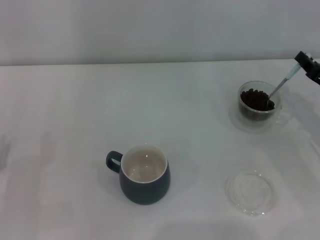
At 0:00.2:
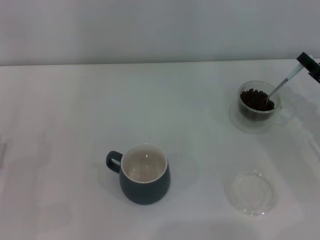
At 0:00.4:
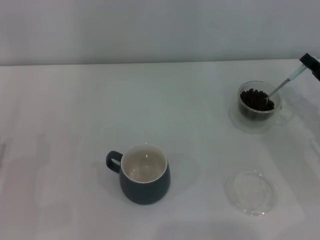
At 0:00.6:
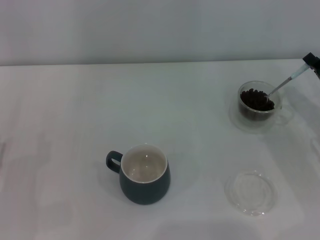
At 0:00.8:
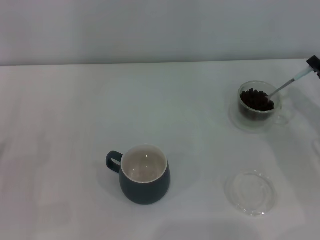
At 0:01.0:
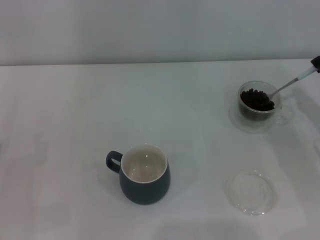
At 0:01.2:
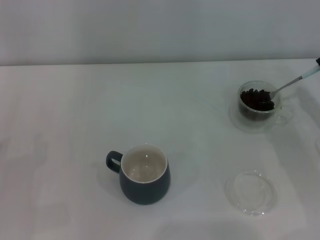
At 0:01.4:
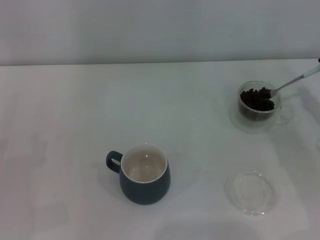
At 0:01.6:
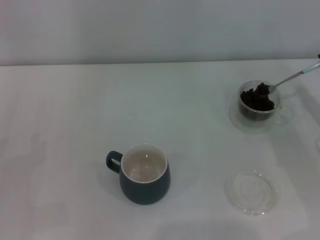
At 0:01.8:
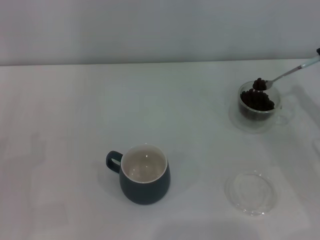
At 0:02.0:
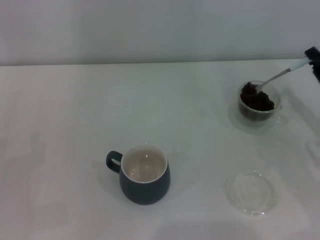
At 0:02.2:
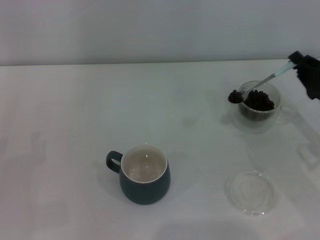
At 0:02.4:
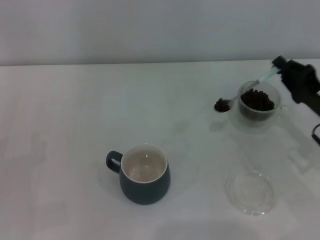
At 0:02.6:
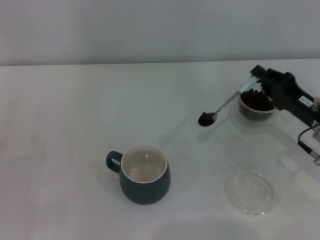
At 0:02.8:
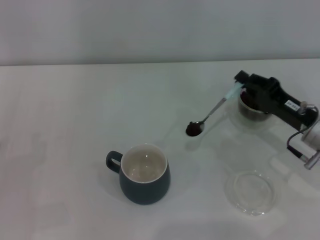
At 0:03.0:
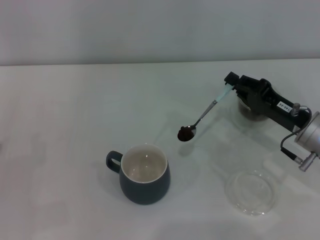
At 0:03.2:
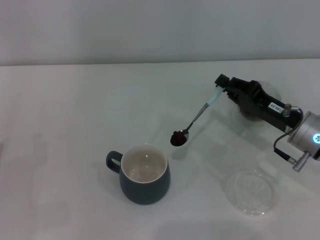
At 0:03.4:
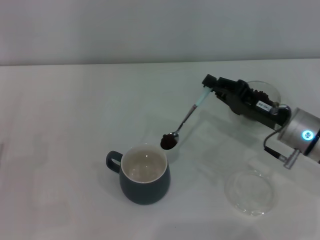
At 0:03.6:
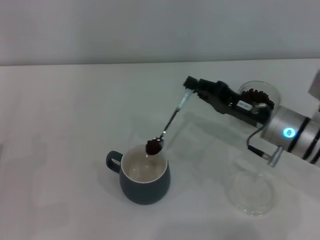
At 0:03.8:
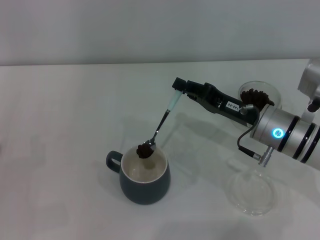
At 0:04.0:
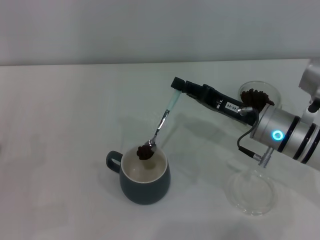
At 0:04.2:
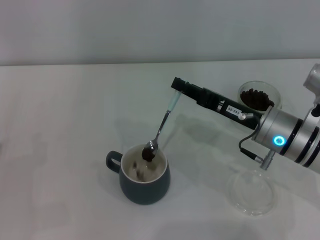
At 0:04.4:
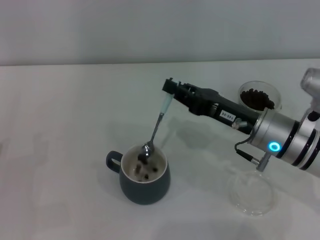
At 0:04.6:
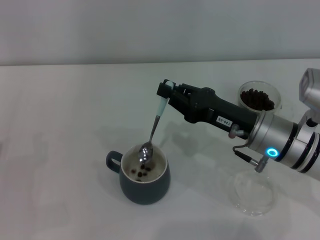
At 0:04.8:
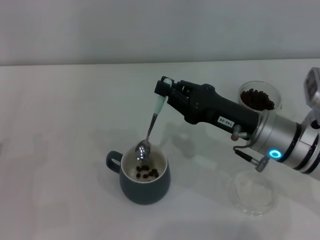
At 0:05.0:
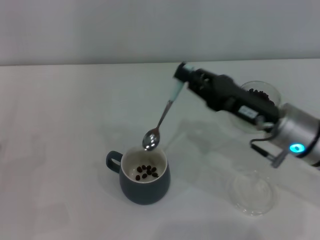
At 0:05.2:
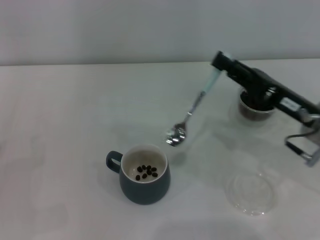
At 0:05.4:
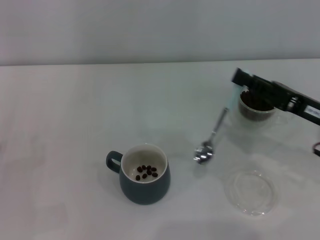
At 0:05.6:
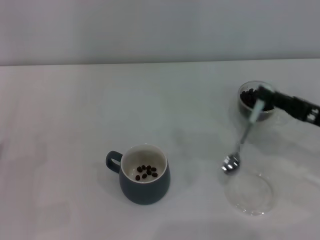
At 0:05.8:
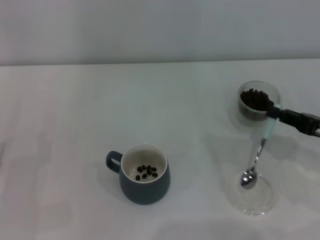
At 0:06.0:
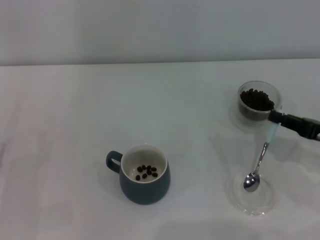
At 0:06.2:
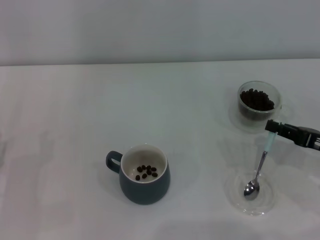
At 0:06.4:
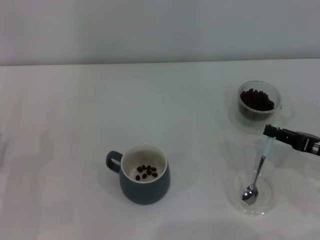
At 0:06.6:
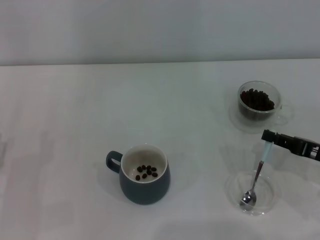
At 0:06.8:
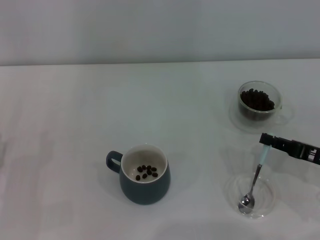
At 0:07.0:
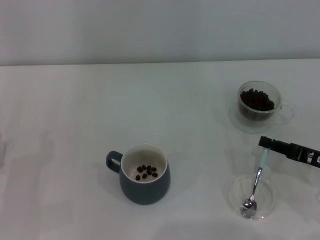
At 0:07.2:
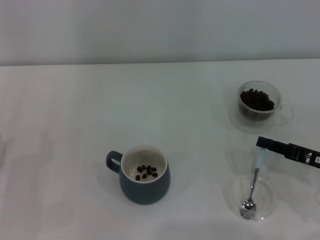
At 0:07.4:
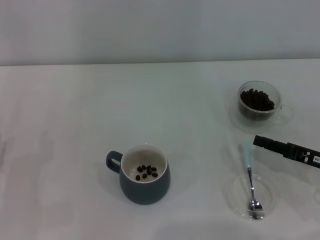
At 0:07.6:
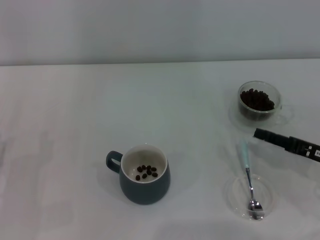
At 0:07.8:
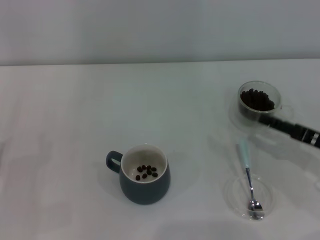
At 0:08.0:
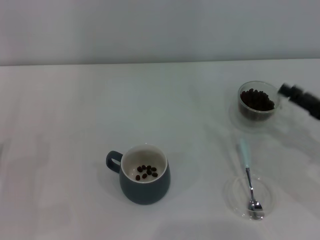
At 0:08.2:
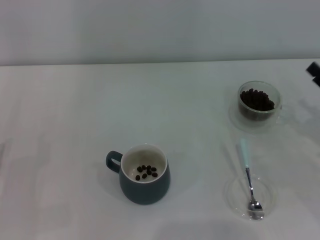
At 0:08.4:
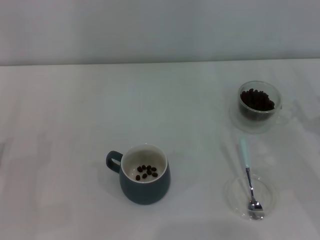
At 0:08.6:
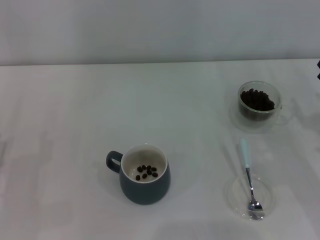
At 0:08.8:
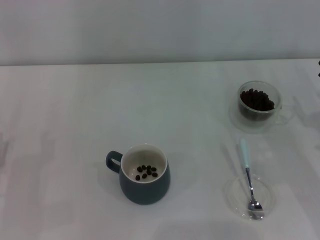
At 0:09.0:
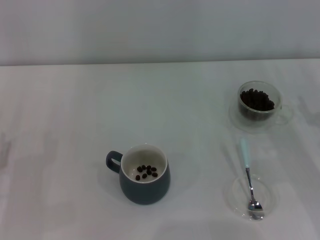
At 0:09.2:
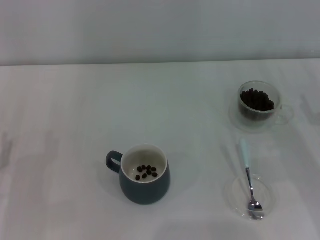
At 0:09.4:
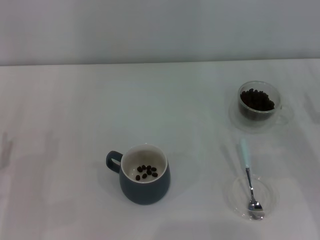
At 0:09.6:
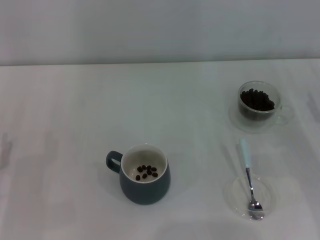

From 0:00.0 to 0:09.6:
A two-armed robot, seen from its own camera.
Task of the whole recording: Use a blue spoon to take out the coffee beans from the glass and pour them into the gray cup.
Step, from 0:00.0 to 0:05.0: Scoop a spoonful of beans into the cup with the right gripper.
Step, from 0:05.2 to 0:07.6: Place the spoon back in its original place with the right gripper.
From 0:01.6 to 0:03.2: The right gripper heads to the left, covering some 10 cm.
From 0:03.2 to 0:04.8: The right gripper is displaced to the left by some 5 cm.
From 0:04.8 to 0:06.4: The right gripper heads to the right, covering approximately 15 cm.
From 0:06.4 to 0:08.0: The right gripper opens up.
